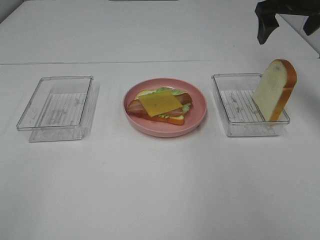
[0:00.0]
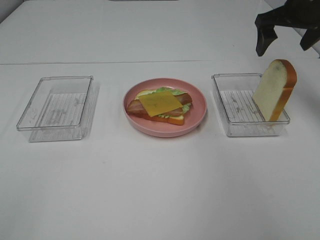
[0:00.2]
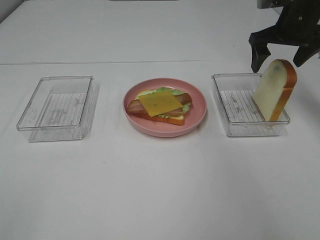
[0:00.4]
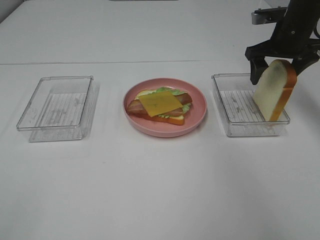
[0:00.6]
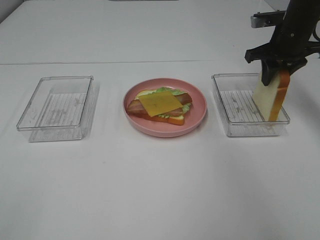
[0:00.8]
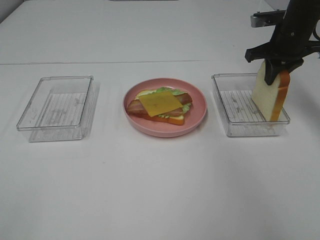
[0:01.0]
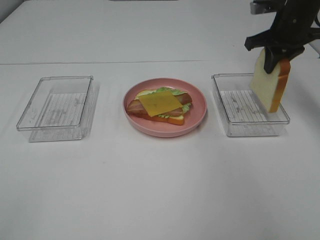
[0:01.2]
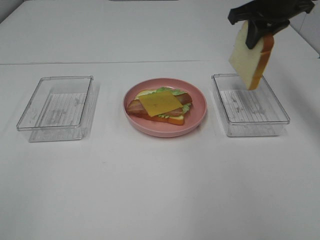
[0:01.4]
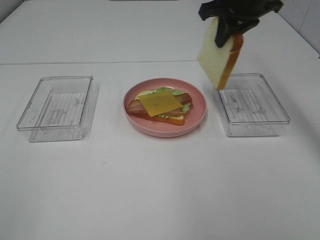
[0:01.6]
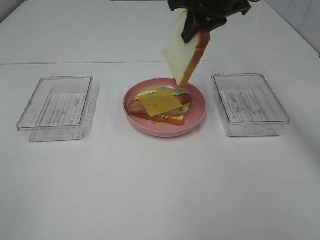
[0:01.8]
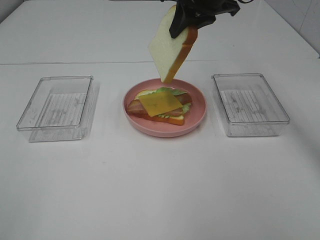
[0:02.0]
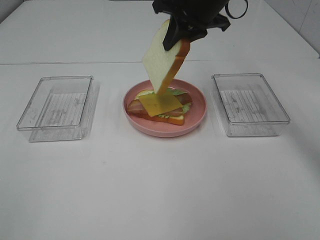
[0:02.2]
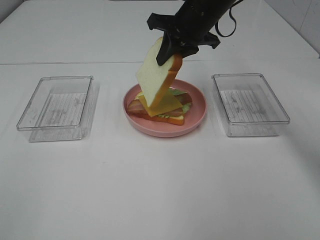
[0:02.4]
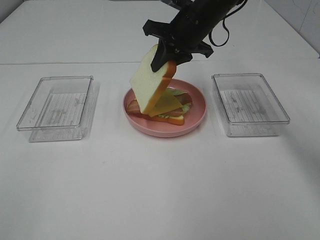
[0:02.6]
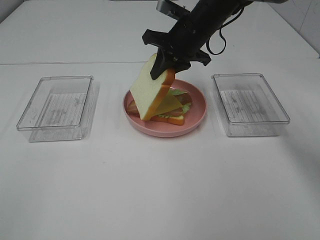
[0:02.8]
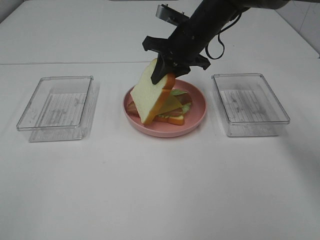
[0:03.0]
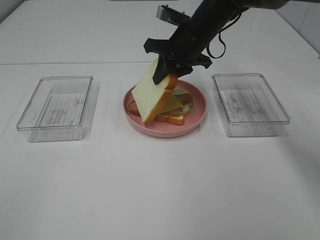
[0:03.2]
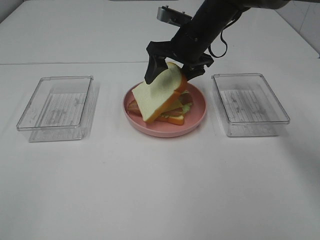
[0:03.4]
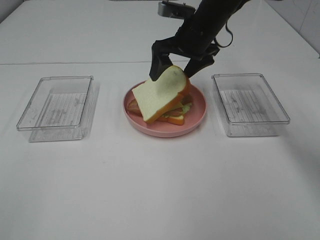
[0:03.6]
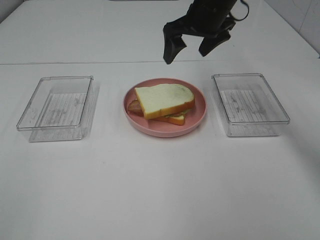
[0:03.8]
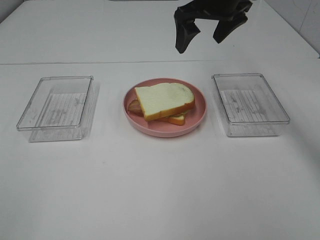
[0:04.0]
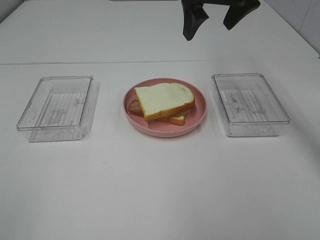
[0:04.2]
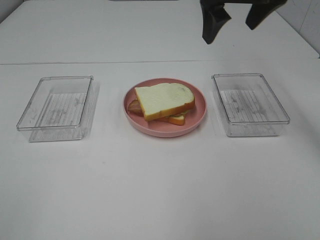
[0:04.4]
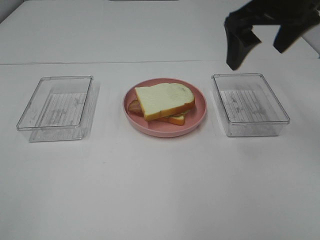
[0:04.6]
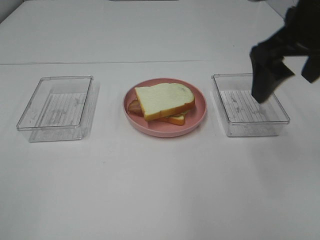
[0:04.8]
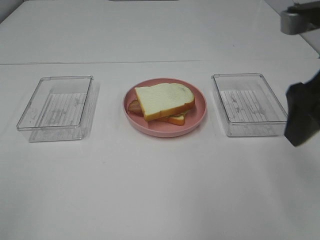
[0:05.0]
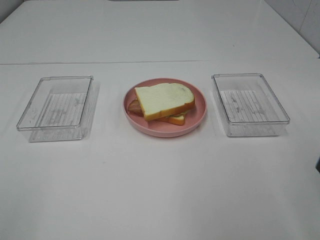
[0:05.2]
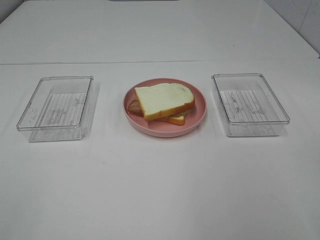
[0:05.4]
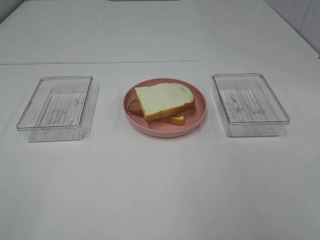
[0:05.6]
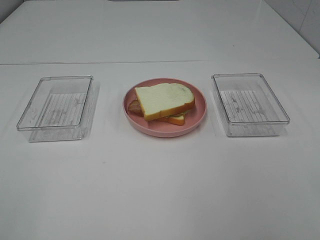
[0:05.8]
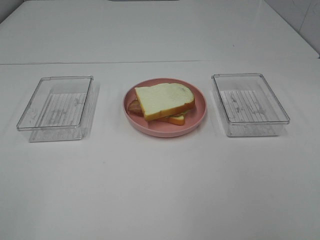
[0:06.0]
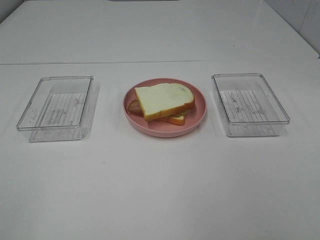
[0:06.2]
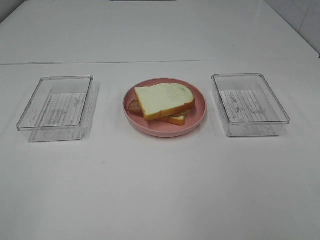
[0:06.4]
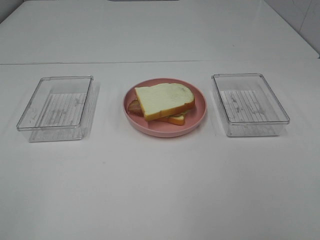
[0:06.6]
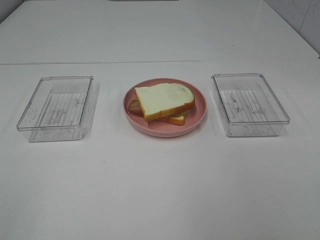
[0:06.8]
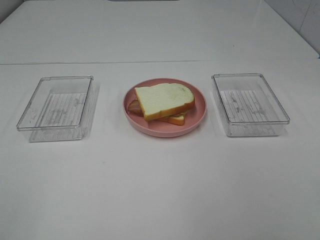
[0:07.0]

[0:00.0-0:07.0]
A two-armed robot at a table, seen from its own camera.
Task of the whole recording: Make sandwiches.
Step, 0:01.2 to 0:04.0: Right hand:place bacon on bacon.
0:00.0 to 0:01.4: The right gripper goes downward and returns, some 10 cm each way, and closes.
0:01.4 to 0:02.8: The right gripper is displaced to the left and downward by approximately 15 cm.
0:02.8 to 0:04.2: The right gripper heads upward, covering about 10 cm, and opens its fingers.
0:04.2 to 0:05.6: The right gripper goes roughly 40 cm backward and to the right.

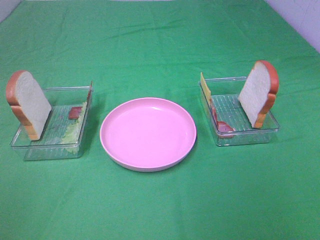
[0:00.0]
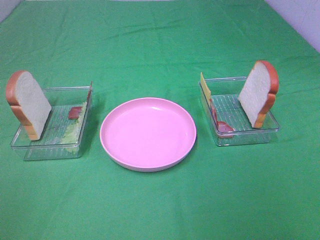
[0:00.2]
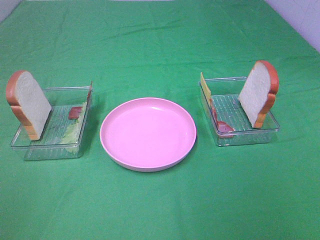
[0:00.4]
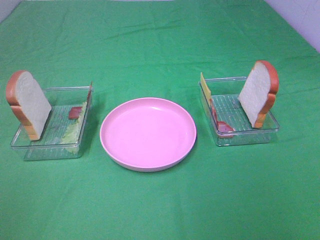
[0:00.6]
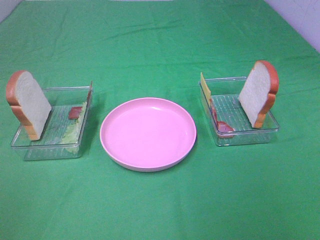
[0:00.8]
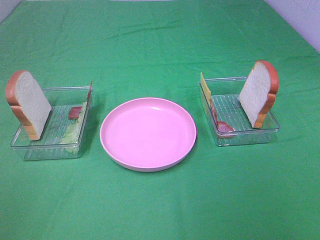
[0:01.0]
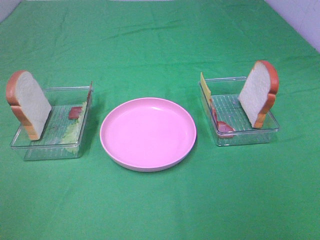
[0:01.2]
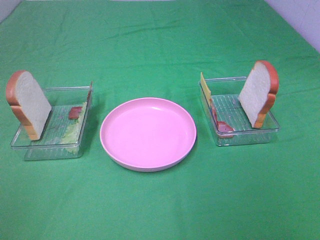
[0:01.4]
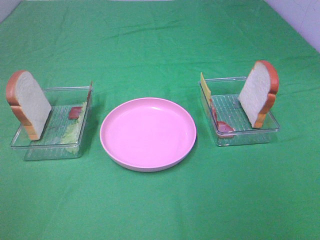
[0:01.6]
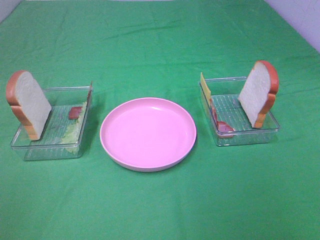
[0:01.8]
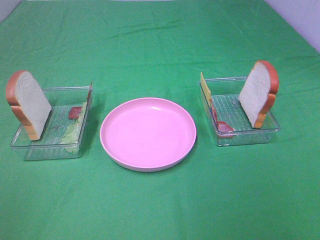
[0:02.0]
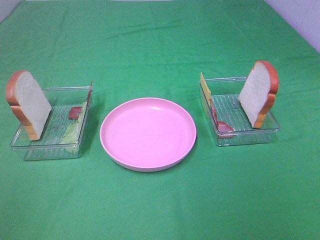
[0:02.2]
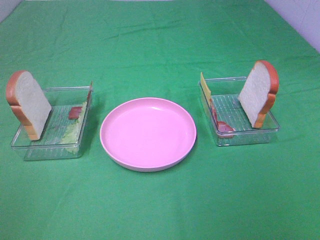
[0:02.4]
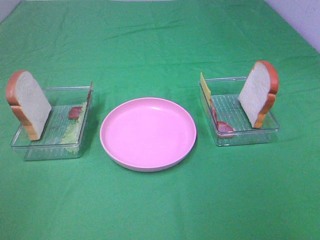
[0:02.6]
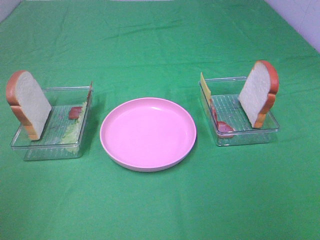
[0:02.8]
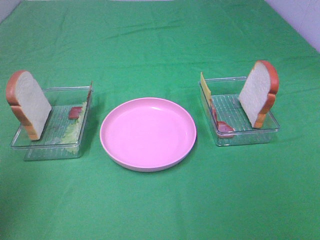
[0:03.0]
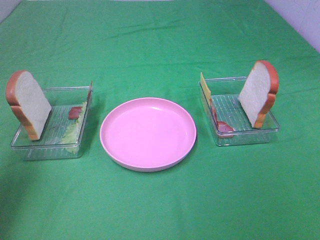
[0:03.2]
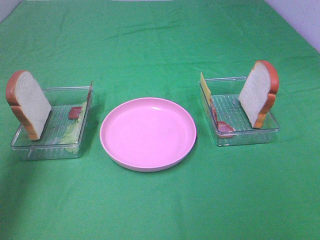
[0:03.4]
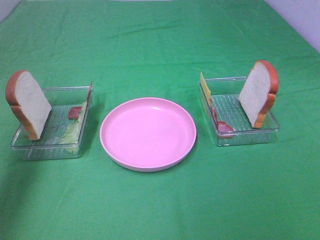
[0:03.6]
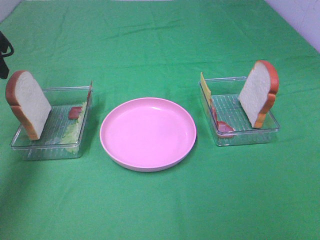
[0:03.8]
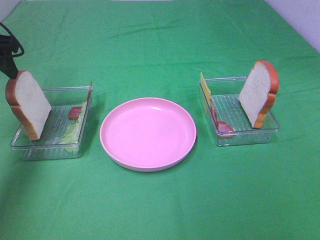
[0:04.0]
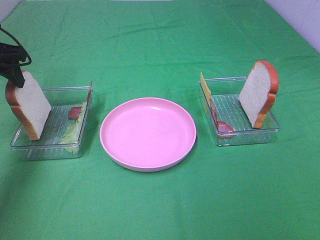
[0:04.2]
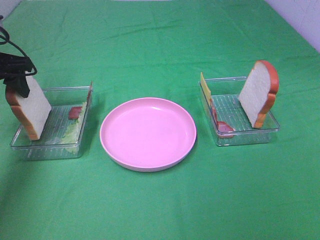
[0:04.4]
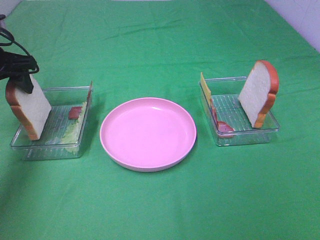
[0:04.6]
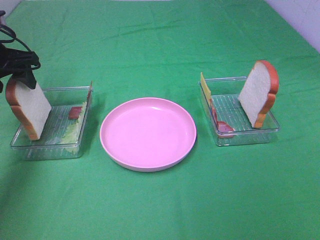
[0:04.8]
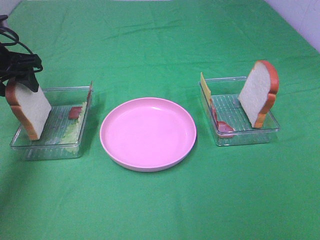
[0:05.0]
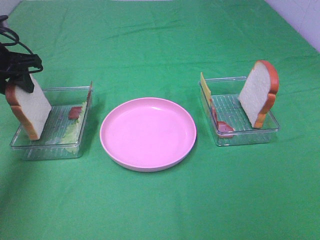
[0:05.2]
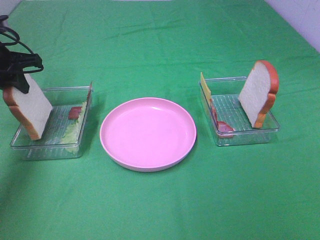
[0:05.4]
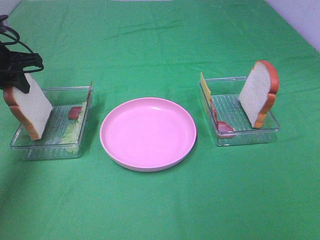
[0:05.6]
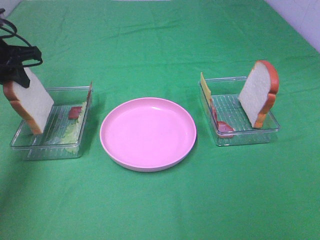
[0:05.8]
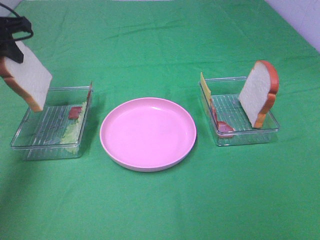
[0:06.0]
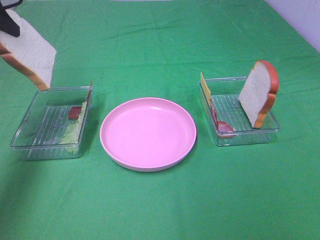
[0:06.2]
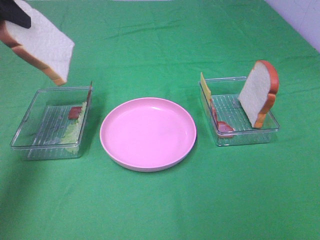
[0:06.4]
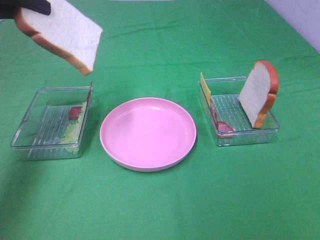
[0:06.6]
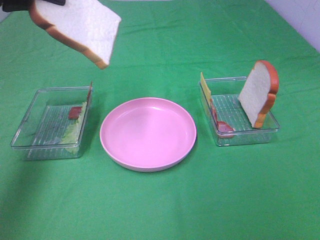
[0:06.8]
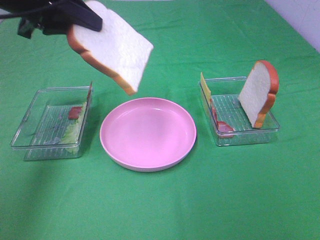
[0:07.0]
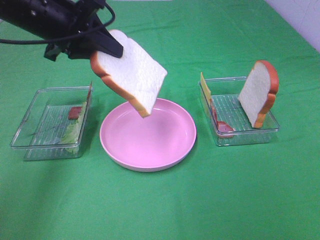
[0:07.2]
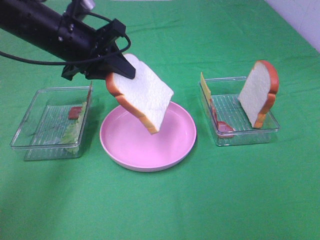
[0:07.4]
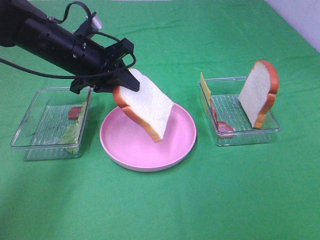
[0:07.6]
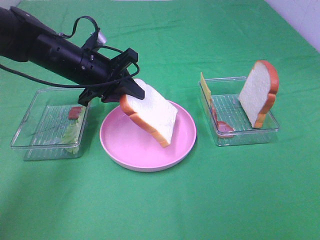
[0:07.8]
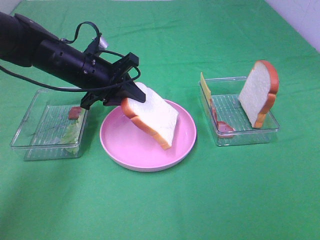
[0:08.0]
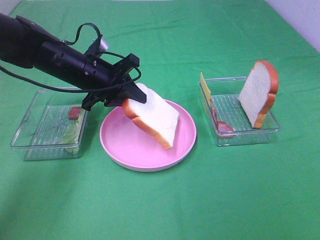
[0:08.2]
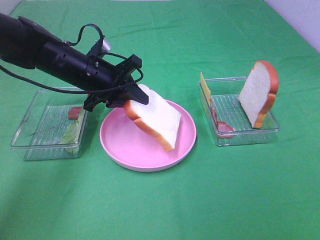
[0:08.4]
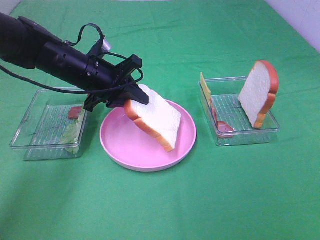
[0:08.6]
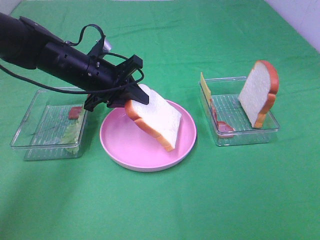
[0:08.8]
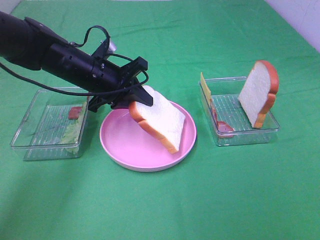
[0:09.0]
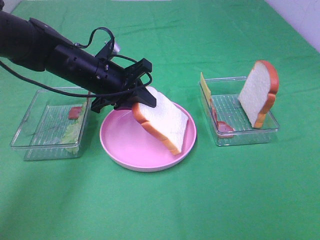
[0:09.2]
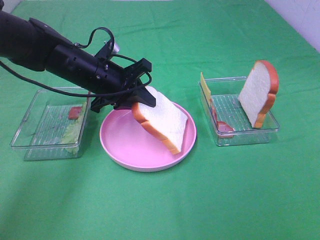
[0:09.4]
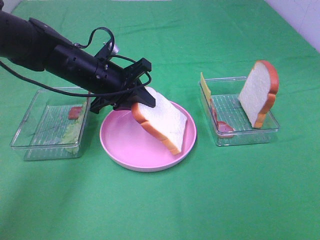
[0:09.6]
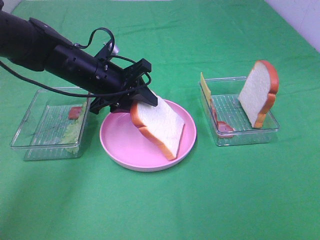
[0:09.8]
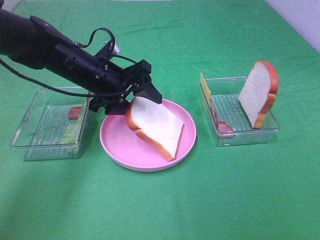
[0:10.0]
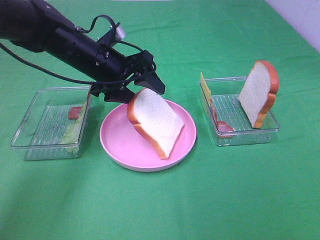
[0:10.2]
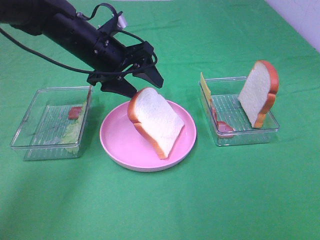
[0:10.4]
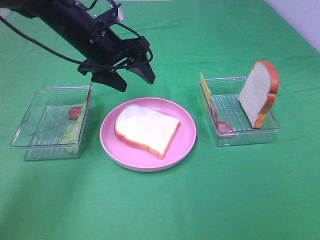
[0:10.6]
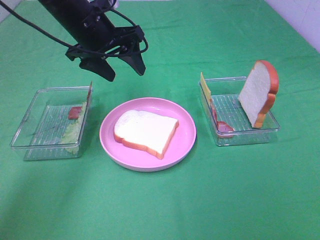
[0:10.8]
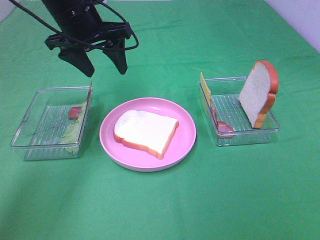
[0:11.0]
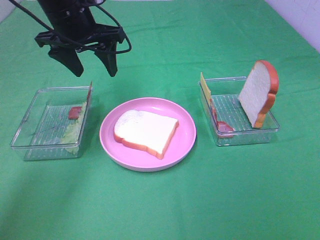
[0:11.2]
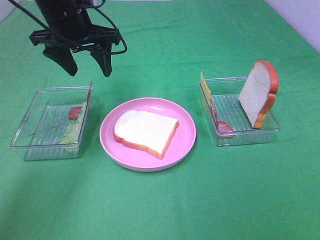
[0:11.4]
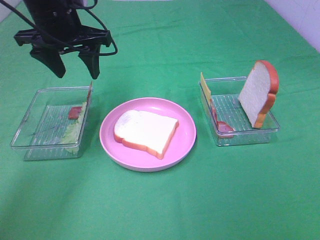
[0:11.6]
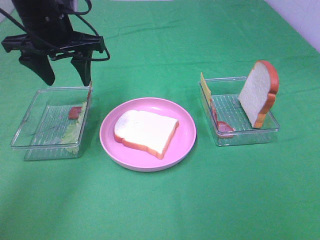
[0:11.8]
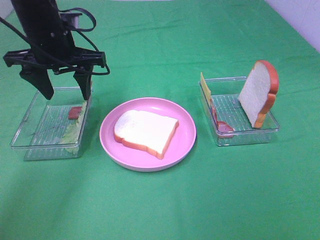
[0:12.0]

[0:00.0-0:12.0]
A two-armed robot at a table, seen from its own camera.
Task of the whole recording: Make sandwiches.
Step, 0:00.0 to 0:05.6: Left hand:grab the bread slice.
Step, 0:05.8 to 0:10.6: Left hand:place the bread slice on the plate.
0:00.0 to 0:01.6: Both grippers stay put.
0:01.6 to 0:03.0: The left gripper moves forward, approximately 15 cm.
0:03.0 to 0:04.4: The left gripper heads forward and downward, covering approximately 25 cm.
0:04.4 to 0:06.0: The left gripper travels upward by roughly 5 cm, and closes up.
0:06.0 to 0:07.6: The left gripper moves to the right and downward, some 15 cm.
0:07.6 to 0:09.0: The grippers make only small movements.
0:09.0 to 0:10.4: The left gripper opens up.
0:10.4 to 0:12.0: The left gripper goes about 5 cm to the left.

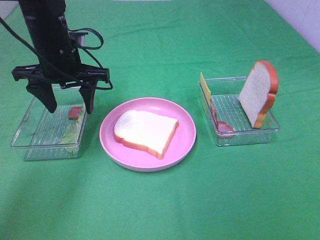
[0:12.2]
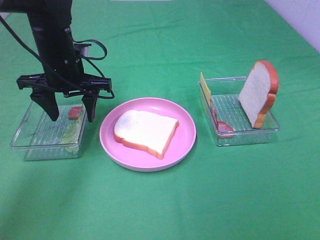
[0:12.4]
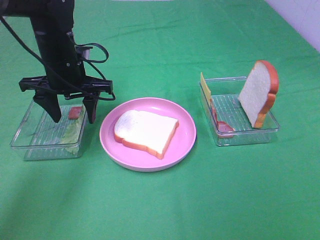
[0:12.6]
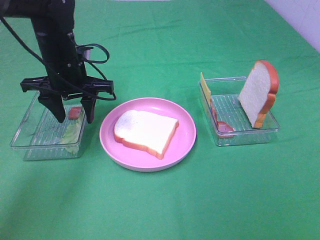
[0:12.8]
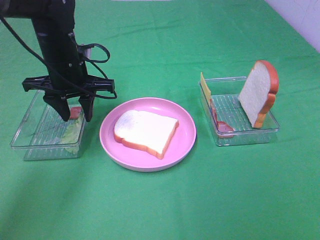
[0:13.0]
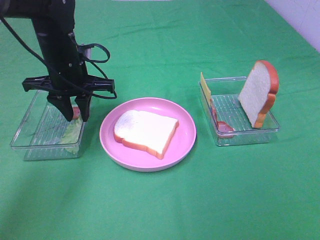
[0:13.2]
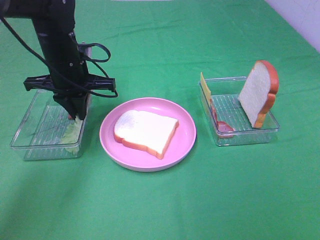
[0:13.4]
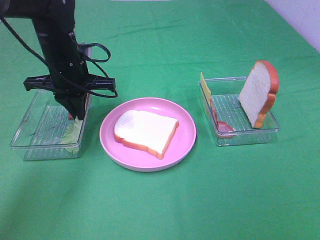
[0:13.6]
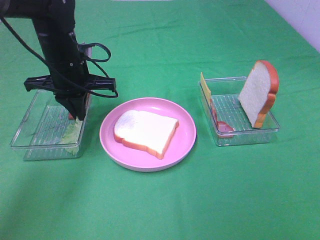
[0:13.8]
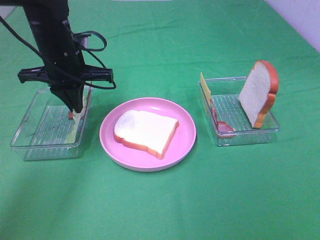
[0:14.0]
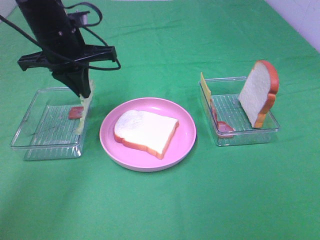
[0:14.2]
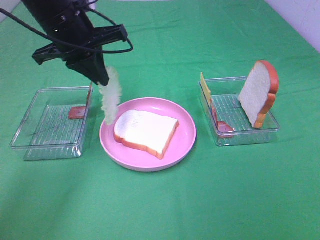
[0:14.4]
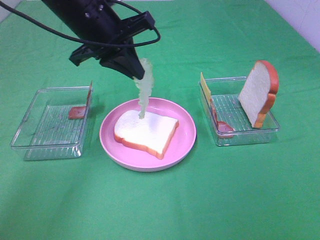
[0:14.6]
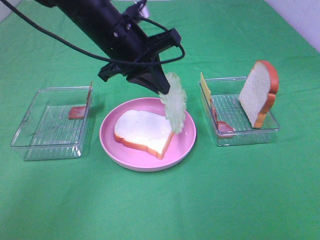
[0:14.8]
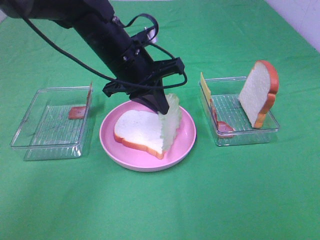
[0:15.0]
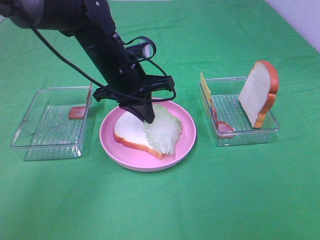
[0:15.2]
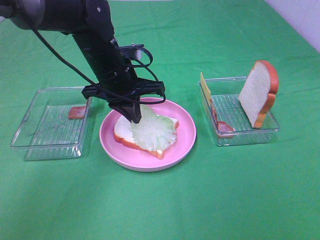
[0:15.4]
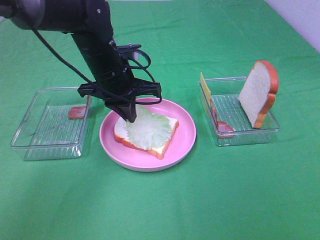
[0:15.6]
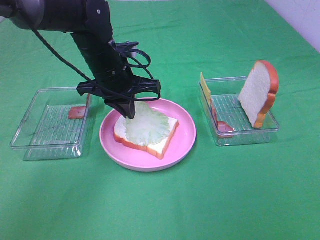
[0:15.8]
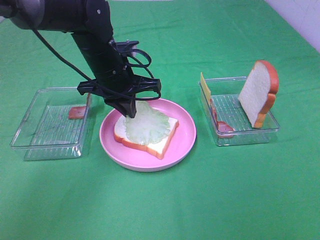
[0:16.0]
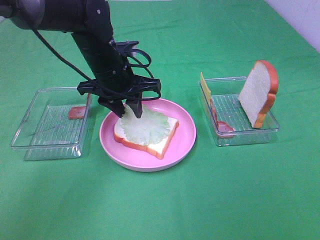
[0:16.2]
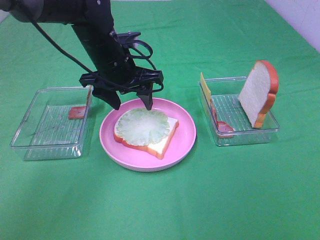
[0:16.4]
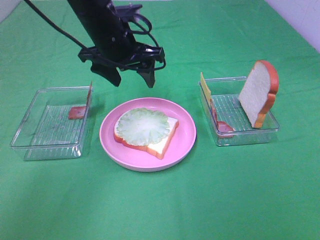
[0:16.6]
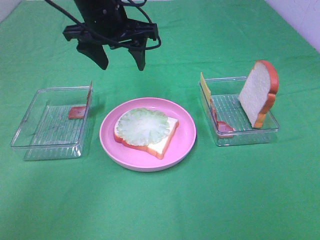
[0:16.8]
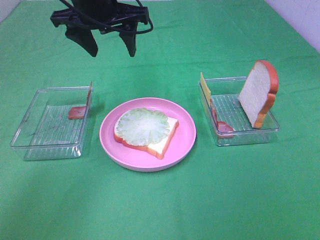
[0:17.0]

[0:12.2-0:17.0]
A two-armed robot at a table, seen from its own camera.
Task of the whole recording: Make sandwiches.
Step, 0:12.2 to 0:14.0: Left hand:grab the lettuce slice.
Step, 0:14.2 to 0:16.2: Left hand:place the lettuce slice on the bread slice.
0:12.2 to 0:13.8: The left gripper closes up.
0:13.8 to 0:15.4: The left gripper is displaced to the right by some 10 cm.
0:15.4 to 0:17.0: The left gripper shifts about 10 cm upward, and opens its fingers.